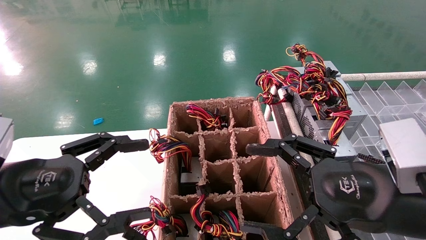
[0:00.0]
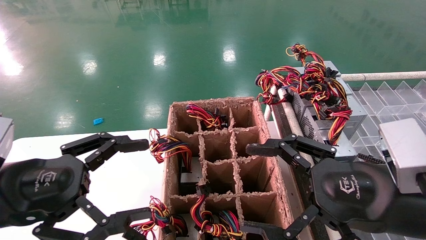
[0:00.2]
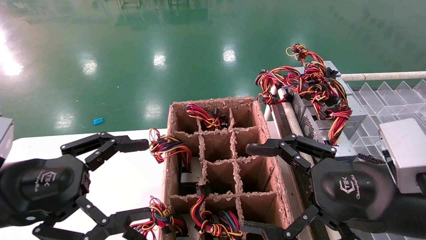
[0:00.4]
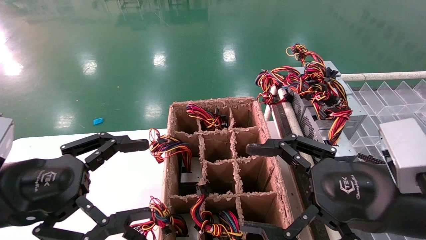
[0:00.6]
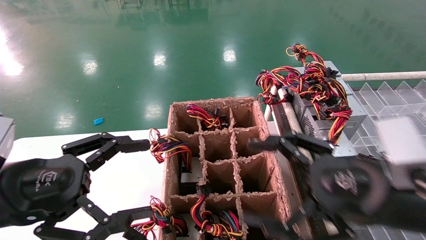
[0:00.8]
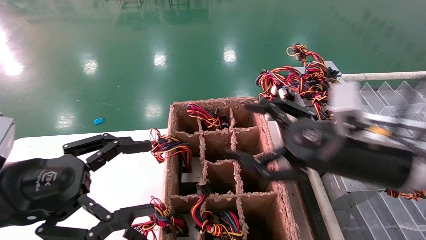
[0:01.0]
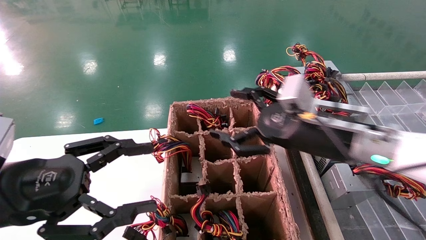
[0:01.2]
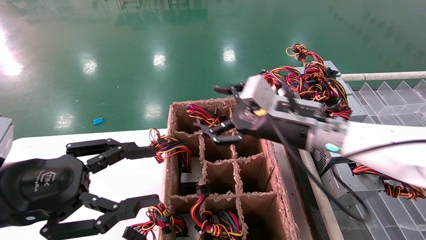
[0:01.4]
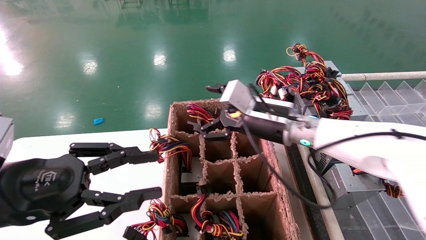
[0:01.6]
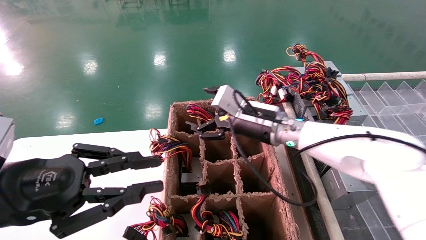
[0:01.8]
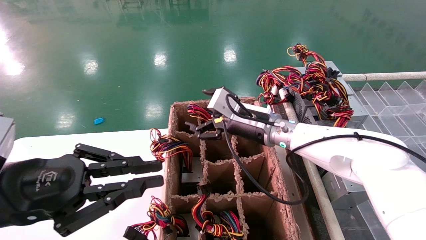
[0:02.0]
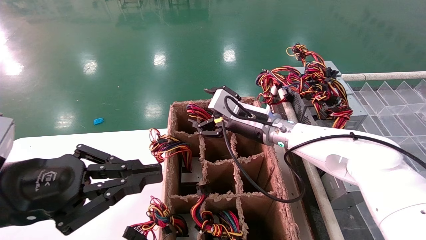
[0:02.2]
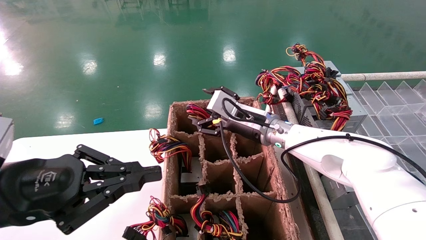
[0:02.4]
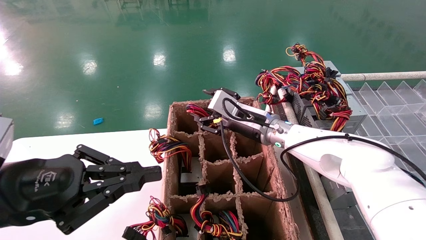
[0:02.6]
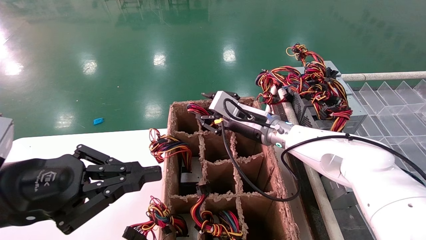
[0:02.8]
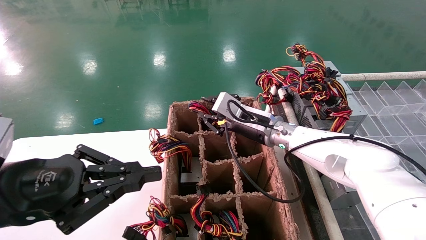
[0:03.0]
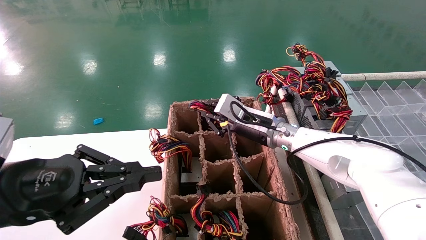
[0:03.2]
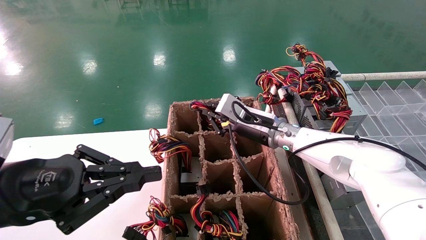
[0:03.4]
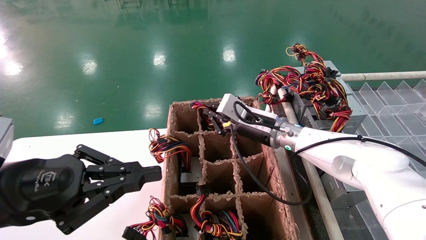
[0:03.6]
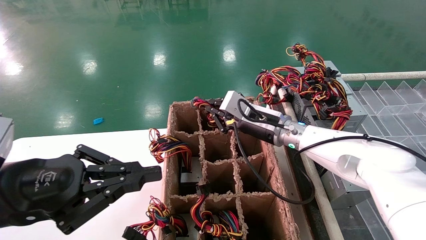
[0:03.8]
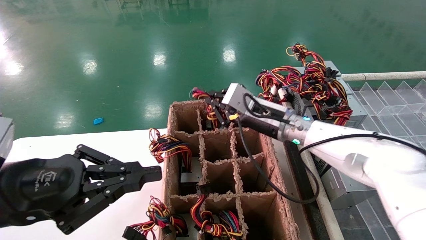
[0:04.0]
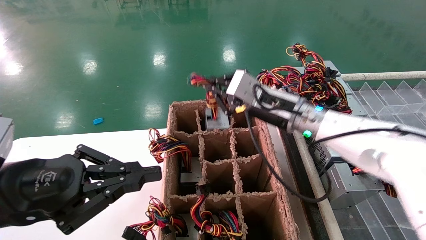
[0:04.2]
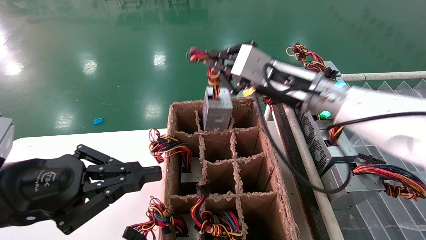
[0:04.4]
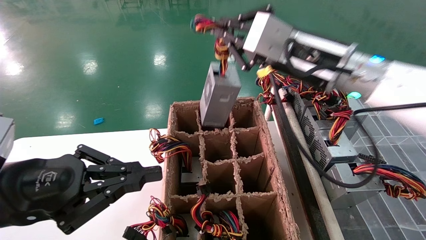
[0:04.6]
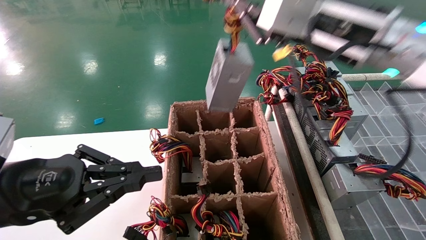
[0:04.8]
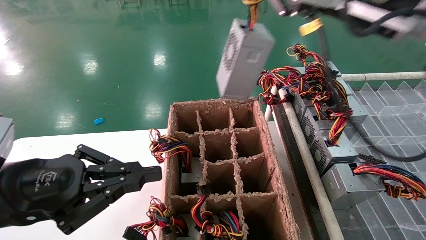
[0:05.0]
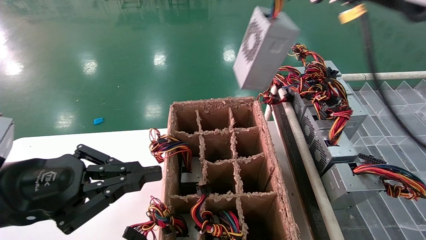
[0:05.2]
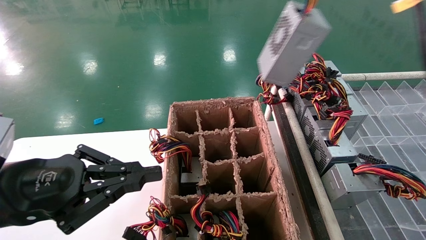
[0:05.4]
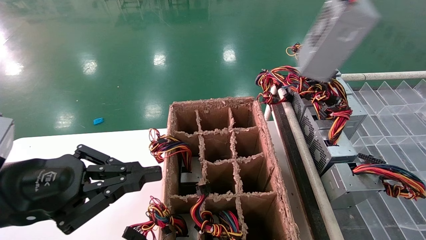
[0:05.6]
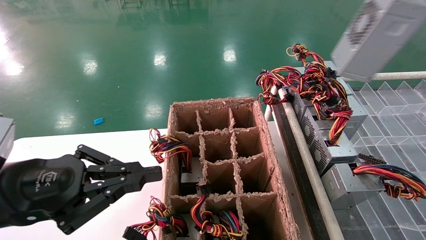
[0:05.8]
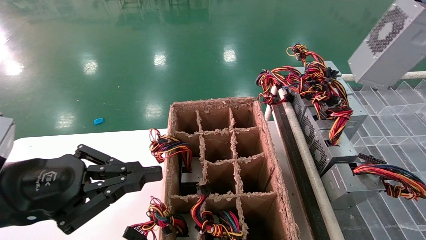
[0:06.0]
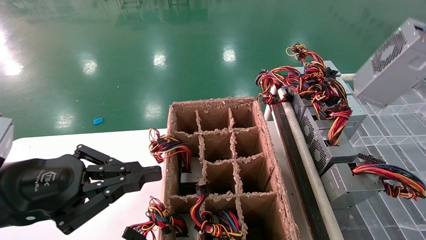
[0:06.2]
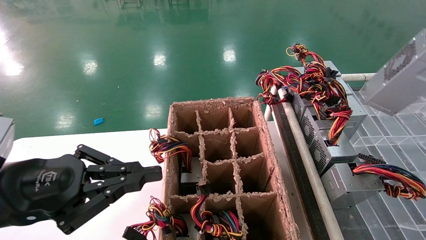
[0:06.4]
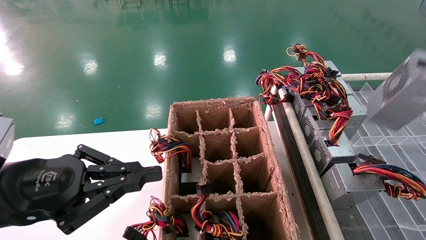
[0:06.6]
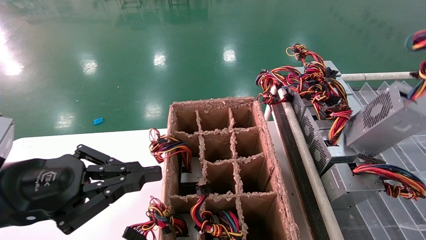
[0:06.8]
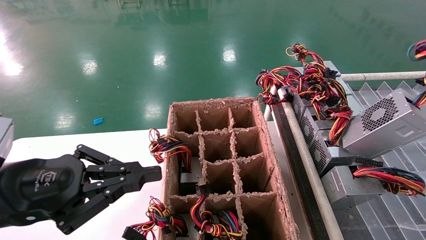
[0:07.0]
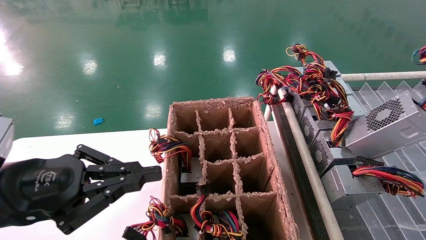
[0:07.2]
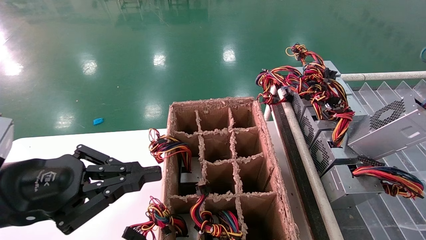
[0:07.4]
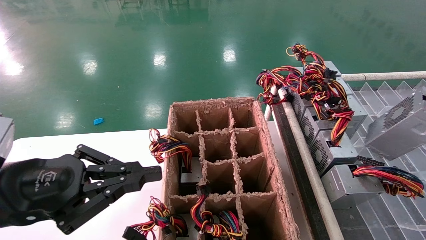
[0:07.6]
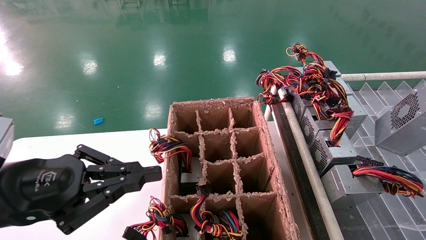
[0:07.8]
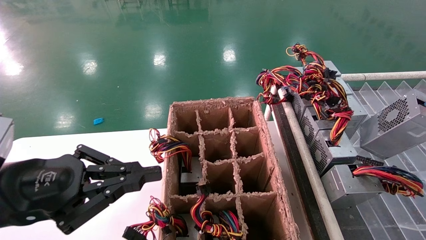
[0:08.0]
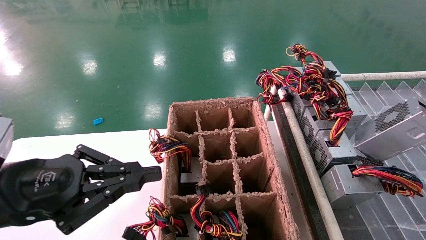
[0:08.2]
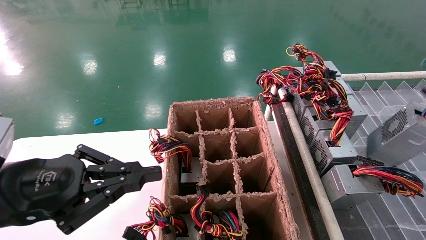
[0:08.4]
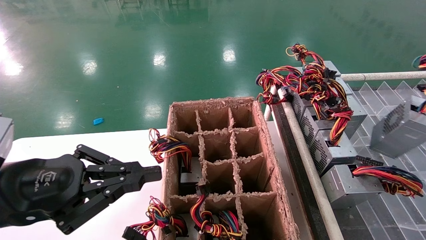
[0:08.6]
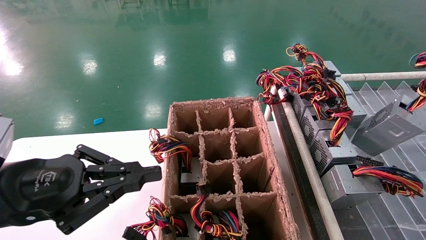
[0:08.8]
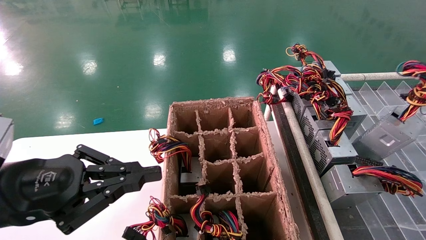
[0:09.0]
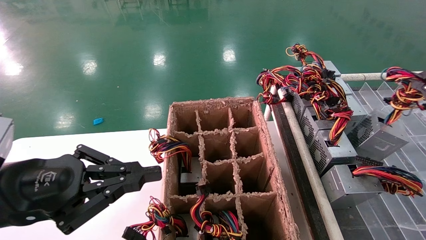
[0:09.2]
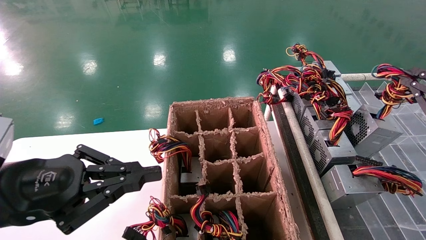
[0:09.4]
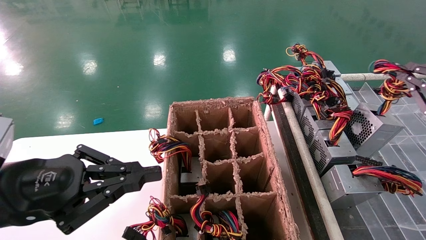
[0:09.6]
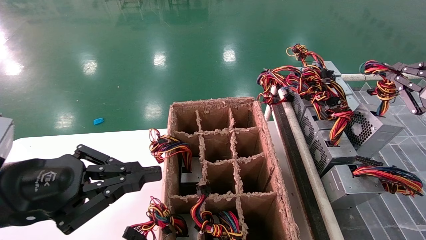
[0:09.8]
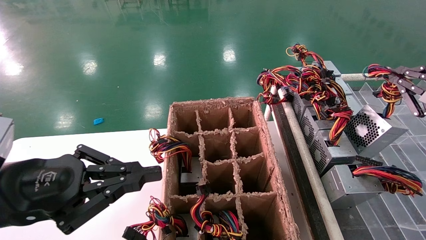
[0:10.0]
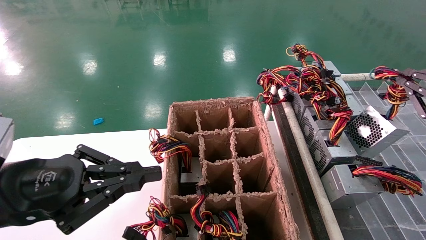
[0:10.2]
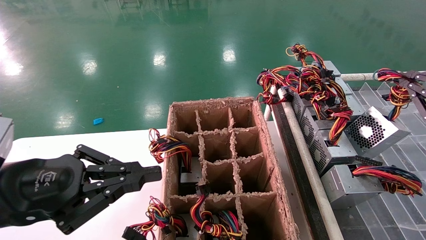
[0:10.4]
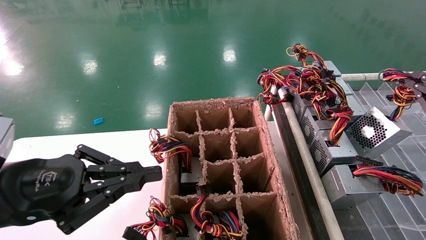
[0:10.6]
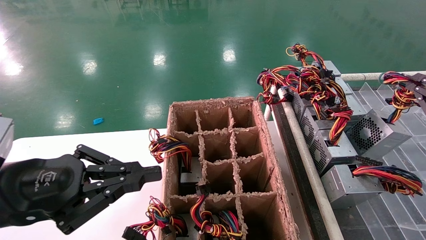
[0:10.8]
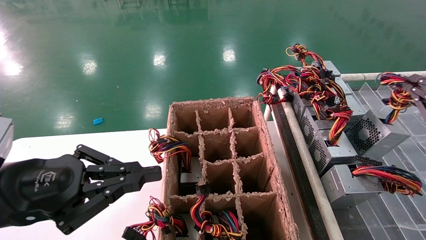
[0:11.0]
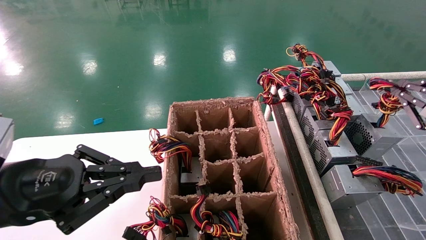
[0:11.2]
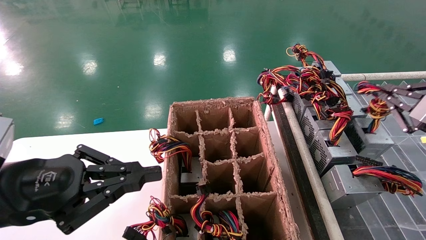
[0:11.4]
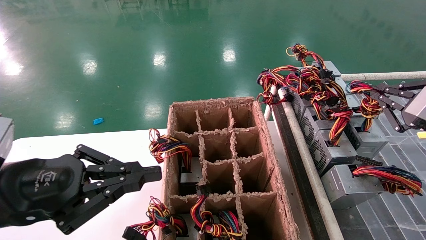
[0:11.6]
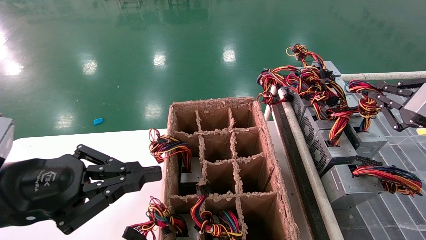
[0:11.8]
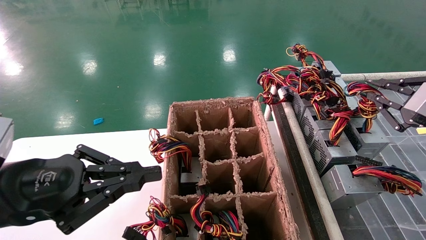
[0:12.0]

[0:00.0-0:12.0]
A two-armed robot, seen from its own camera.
Step, 0:01.4 to 0:03.4: Grab the main unit power supply from the containment box.
0:00.0 to 0:01.6: The right gripper shifts approximately 25 cm forward and to the left; the left gripper closes up.
0:01.6 to 0:03.0: The right gripper moves forward, about 5 cm, and closes. Meanwhile the left gripper closes.
0:03.0 to 0:04.4: The right gripper moves upward and backward, about 15 cm, and closes.
0:04.4 to 0:06.0: The right gripper is displaced to the right, backward and upward by some 35 cm.
0:06.0 to 0:07.6: The right gripper travels downward and to the right by approximately 10 cm.
0:07.6 to 0:09.0: The right gripper travels downward and forward by approximately 10 cm.
0:09.0 to 0:10.4: There are only small adjustments of the grippers.
0:10.4 to 0:12.0: The grippers stay close to where they were, moving slightly.

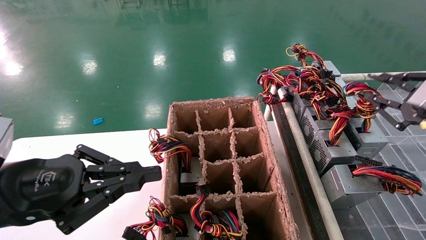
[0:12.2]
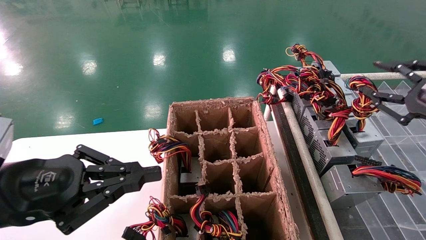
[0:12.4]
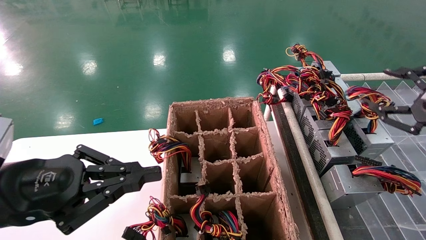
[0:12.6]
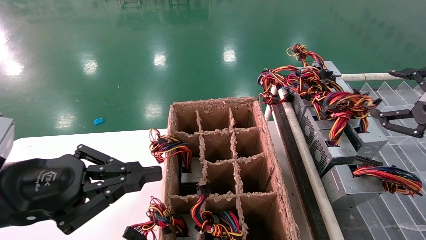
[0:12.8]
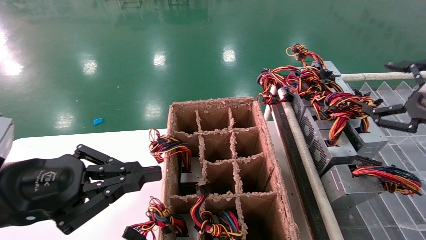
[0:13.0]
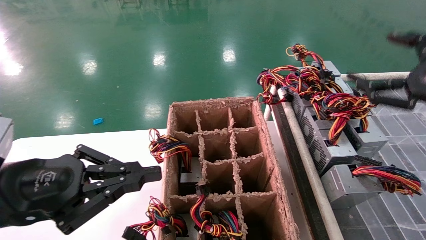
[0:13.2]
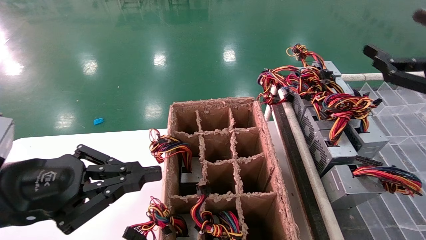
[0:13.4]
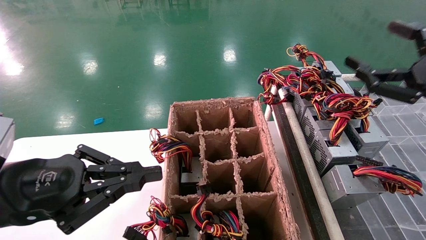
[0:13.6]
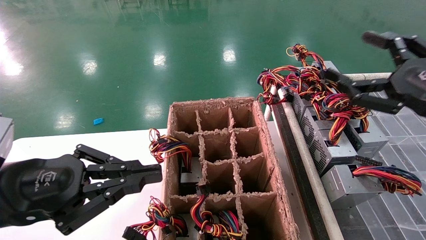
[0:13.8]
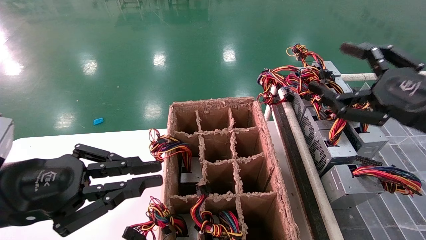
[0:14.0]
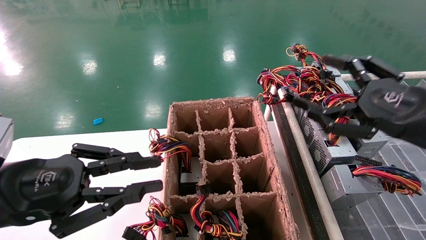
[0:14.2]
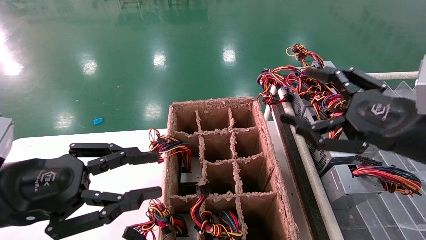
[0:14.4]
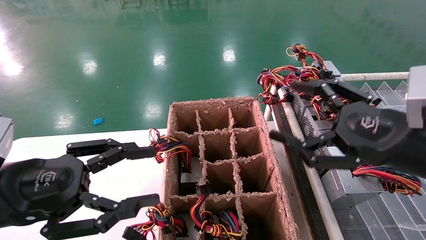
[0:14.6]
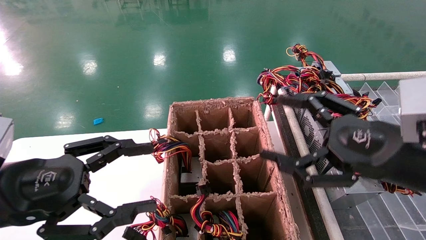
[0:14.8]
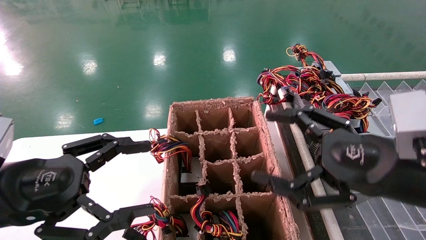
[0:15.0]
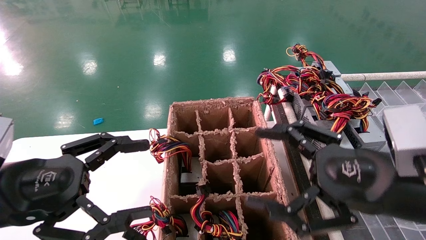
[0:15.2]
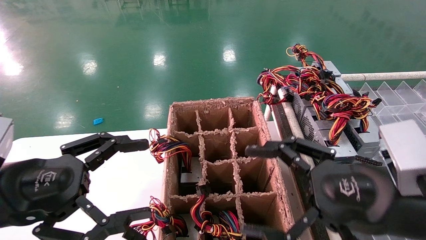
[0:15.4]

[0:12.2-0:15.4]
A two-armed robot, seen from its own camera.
0:12.2 to 0:13.8: The right gripper shifts approximately 5 cm to the left, and opens its fingers.
0:13.8 to 0:15.4: The right gripper moves to the left and downward, some 10 cm; the left gripper opens its fingers.

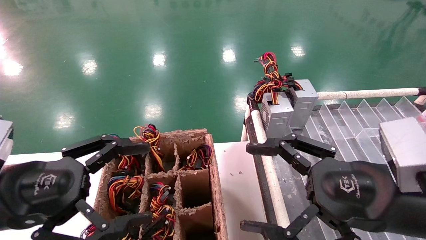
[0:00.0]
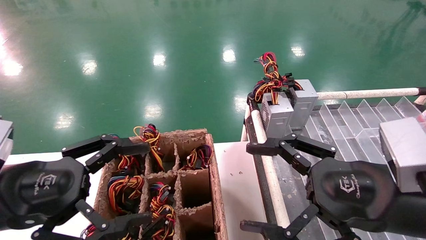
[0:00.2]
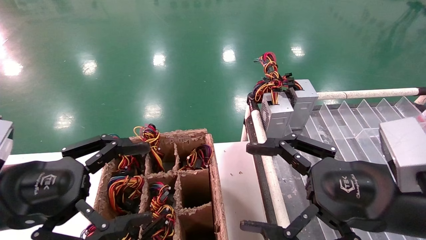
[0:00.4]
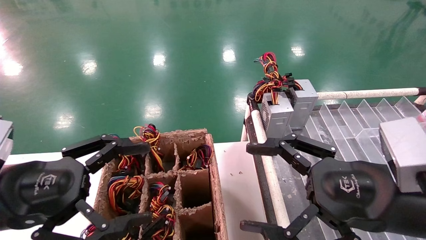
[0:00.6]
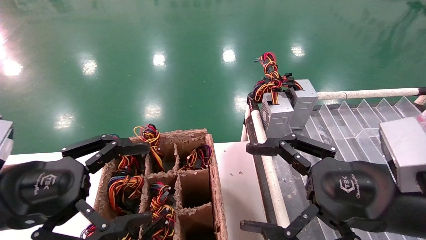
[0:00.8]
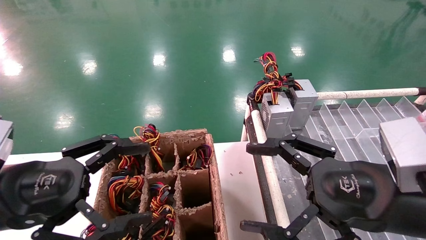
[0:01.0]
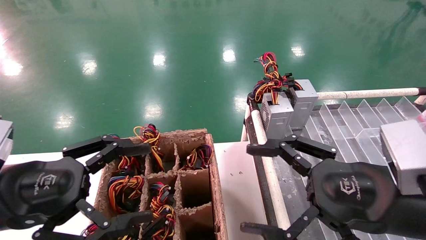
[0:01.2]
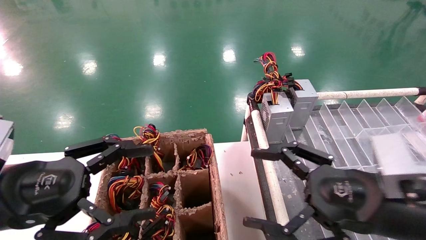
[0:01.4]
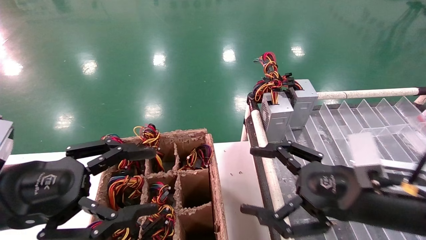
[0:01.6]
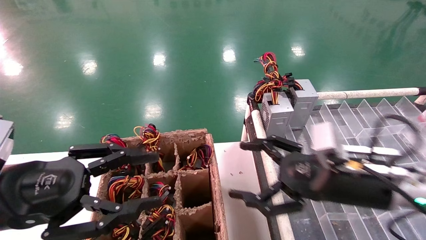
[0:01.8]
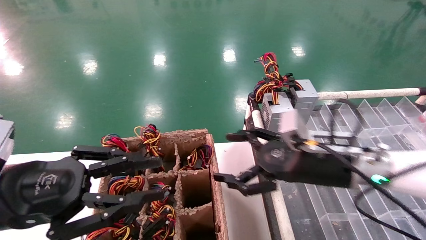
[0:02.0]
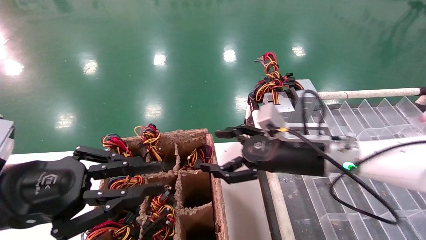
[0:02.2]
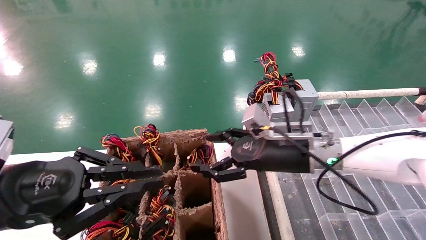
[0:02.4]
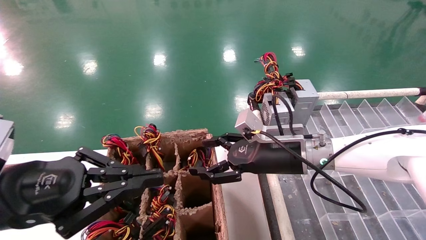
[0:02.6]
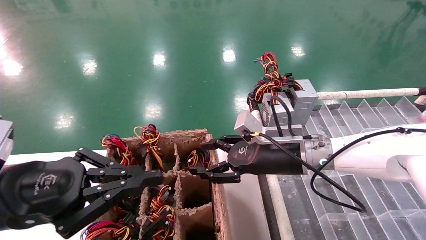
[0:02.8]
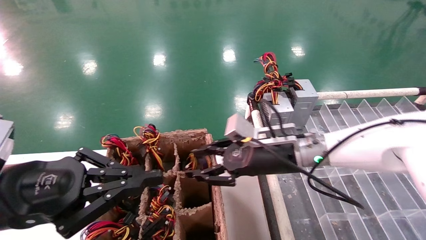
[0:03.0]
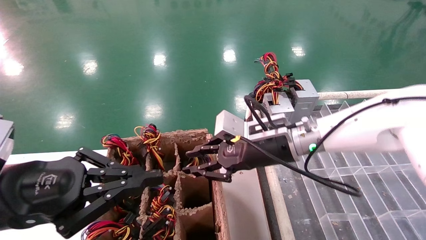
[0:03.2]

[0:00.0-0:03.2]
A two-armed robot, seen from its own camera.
0:00.0 to 0:01.6: The right gripper moves forward, roughly 5 cm.
0:01.6 to 0:03.2: The left gripper closes up. The right gripper travels forward and to the left by some 15 cm, and closes.
